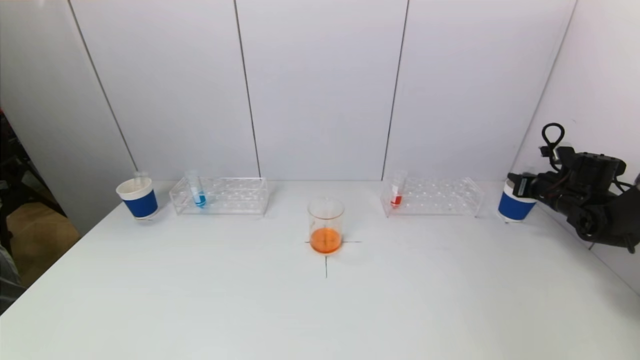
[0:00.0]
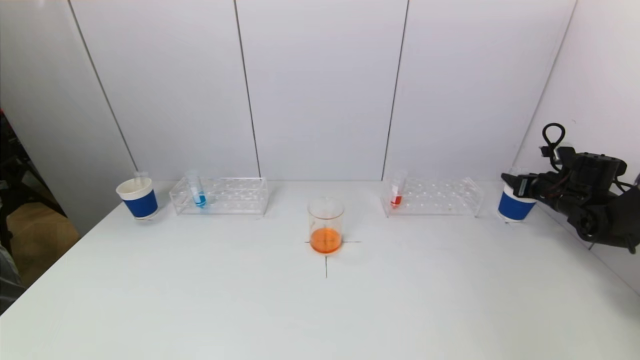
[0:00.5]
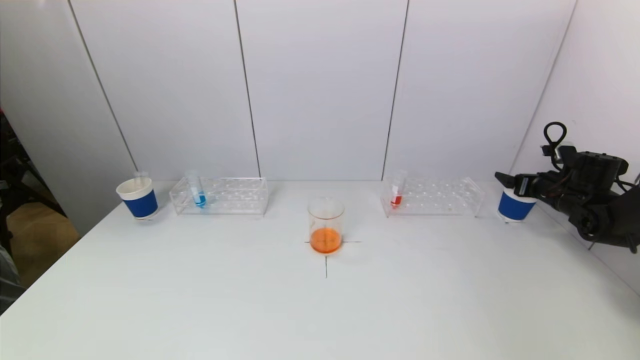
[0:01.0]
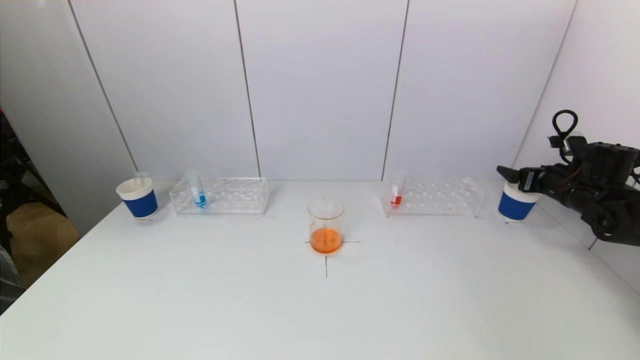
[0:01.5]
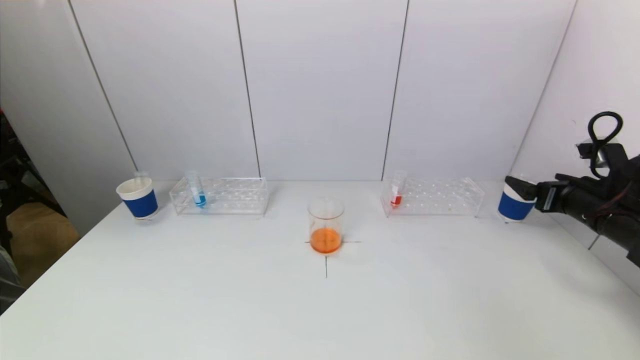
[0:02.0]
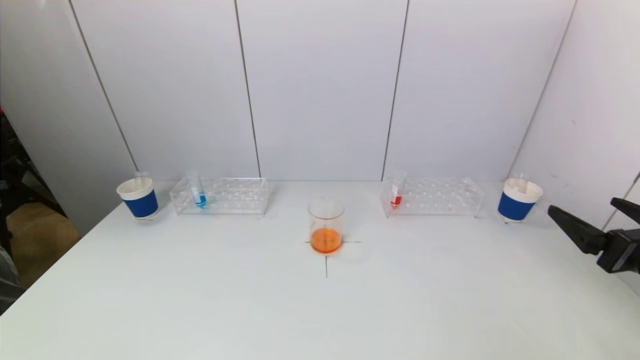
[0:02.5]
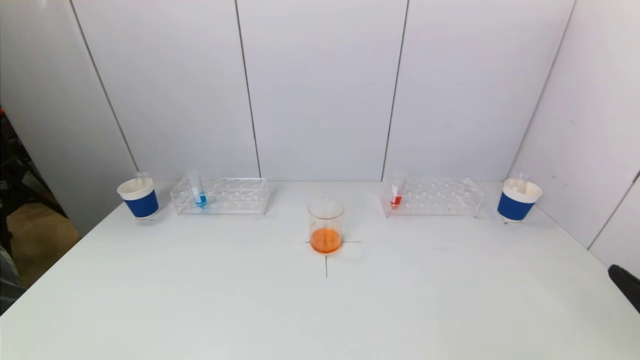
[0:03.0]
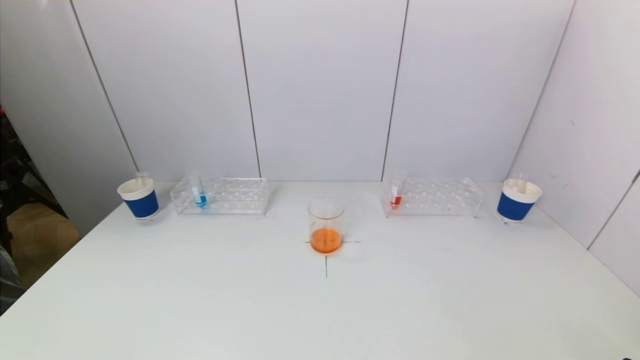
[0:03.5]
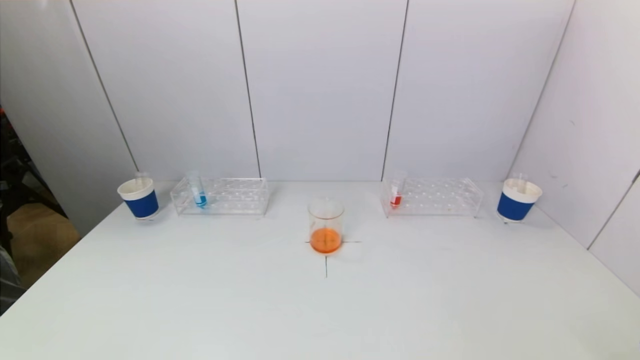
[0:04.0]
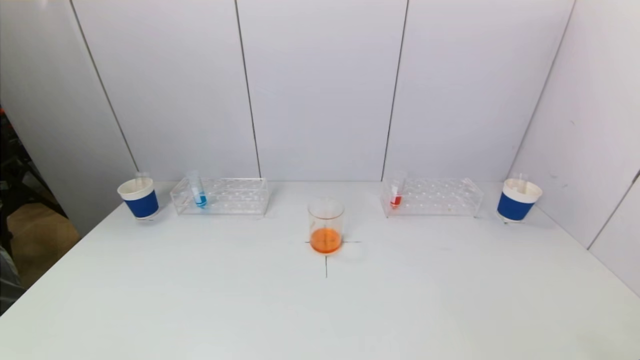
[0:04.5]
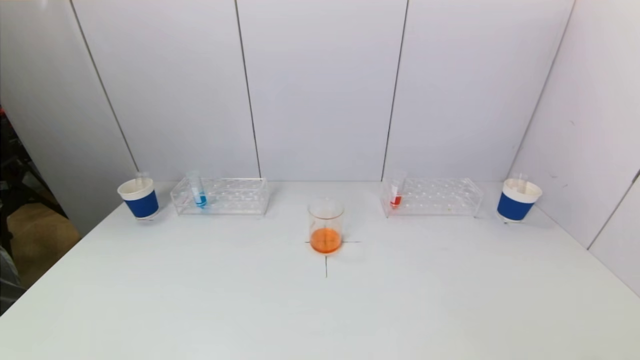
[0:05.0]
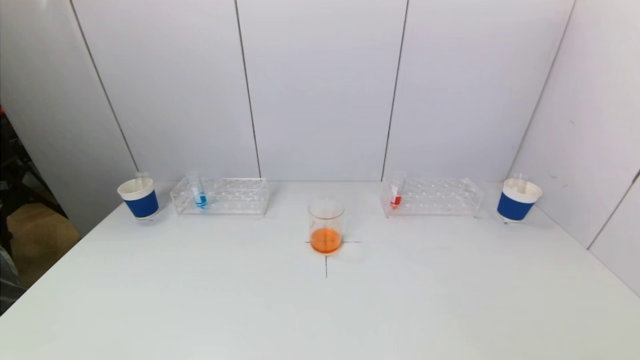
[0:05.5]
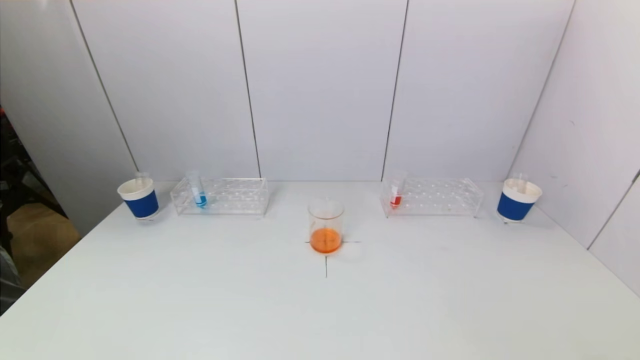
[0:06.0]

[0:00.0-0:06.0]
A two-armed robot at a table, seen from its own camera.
Task of the whole recording: pick up a test tube with pigment on left test tube rack and a test tube with pigment on right test tube rack by grippers and pour them into the beaker.
0:00.0 to 0:02.0: The right gripper shifts roughly 15 cm backward, to the left and upward, and opens its fingers.
0:02.0 to 0:04.0: The right gripper heads backward, covering some 30 cm.
